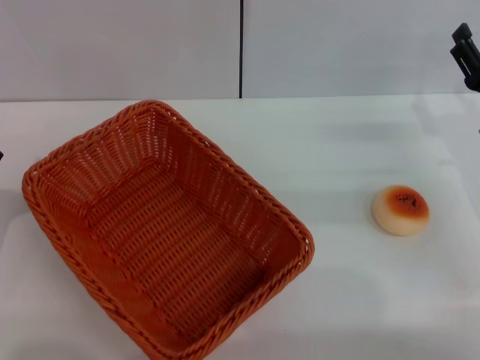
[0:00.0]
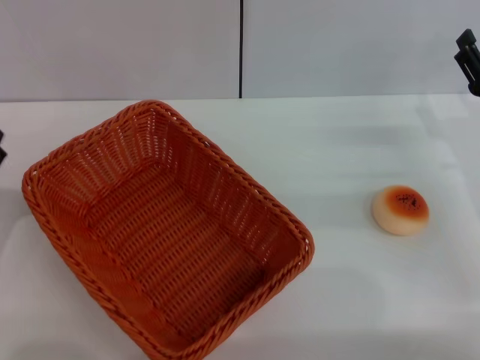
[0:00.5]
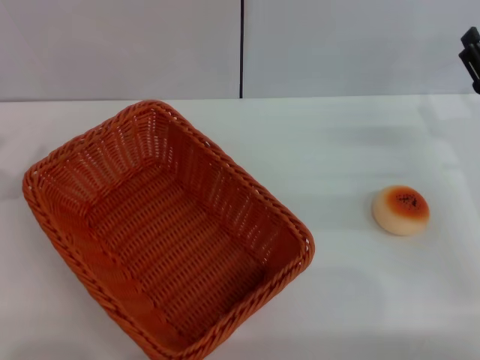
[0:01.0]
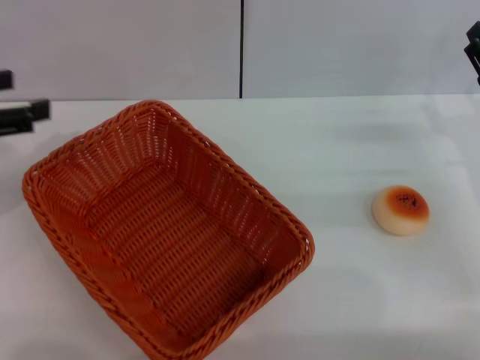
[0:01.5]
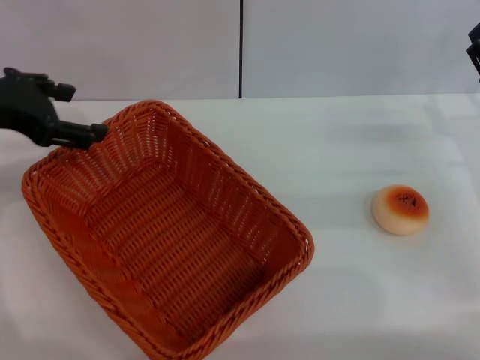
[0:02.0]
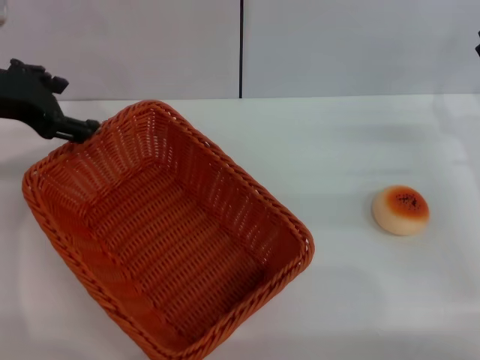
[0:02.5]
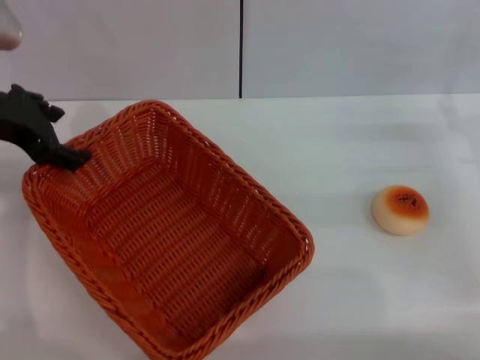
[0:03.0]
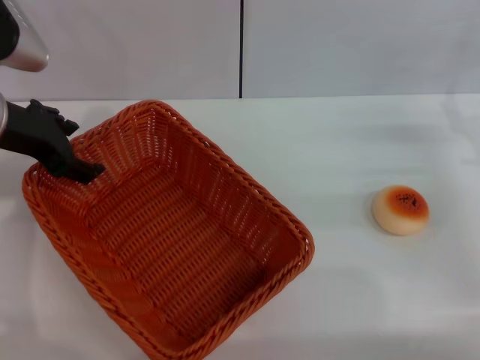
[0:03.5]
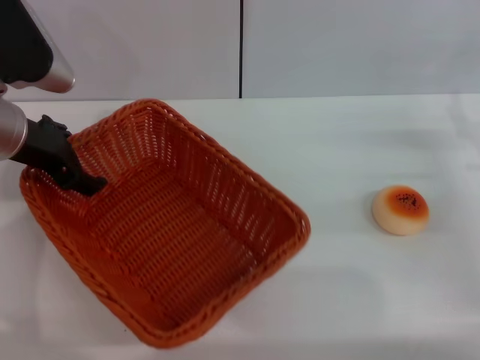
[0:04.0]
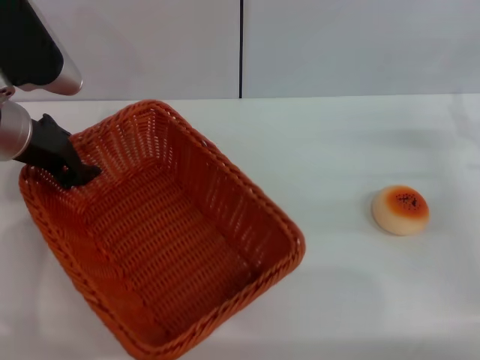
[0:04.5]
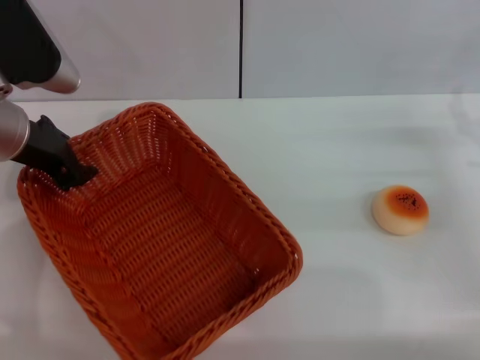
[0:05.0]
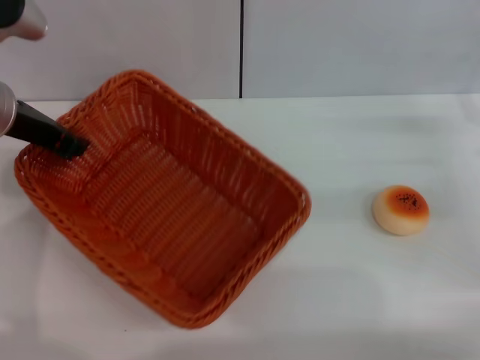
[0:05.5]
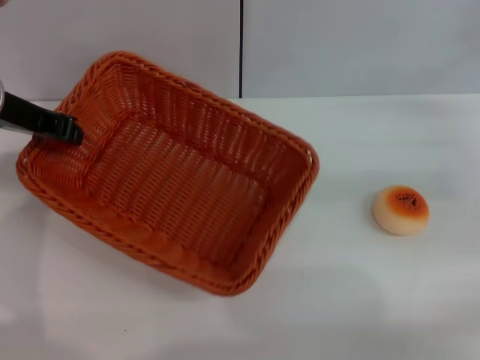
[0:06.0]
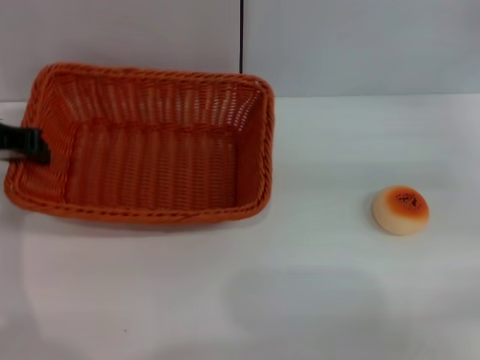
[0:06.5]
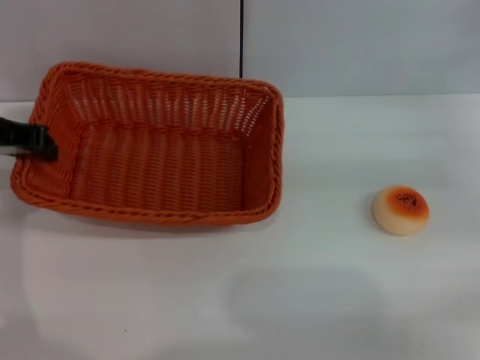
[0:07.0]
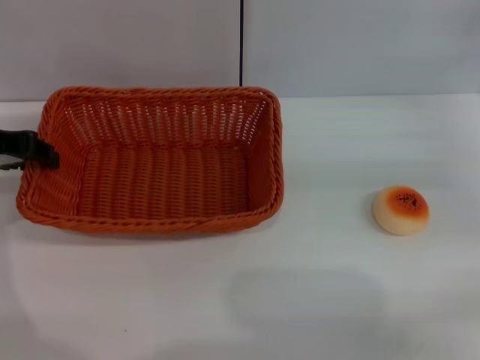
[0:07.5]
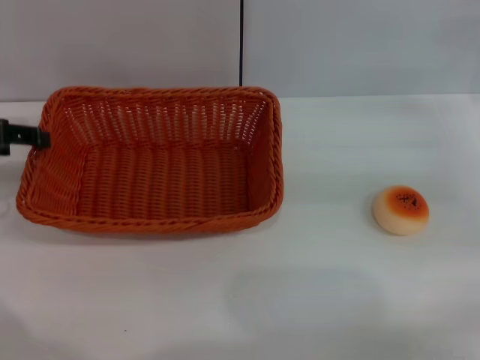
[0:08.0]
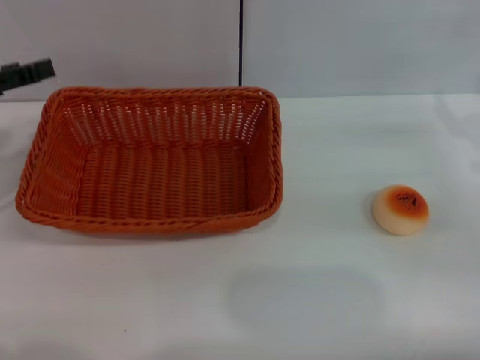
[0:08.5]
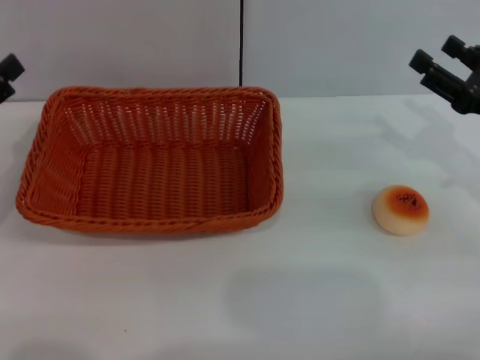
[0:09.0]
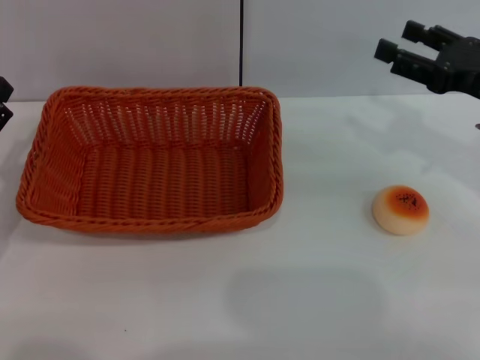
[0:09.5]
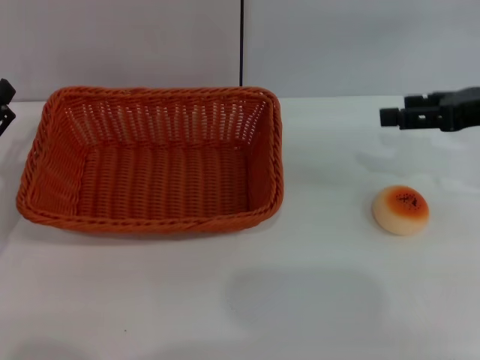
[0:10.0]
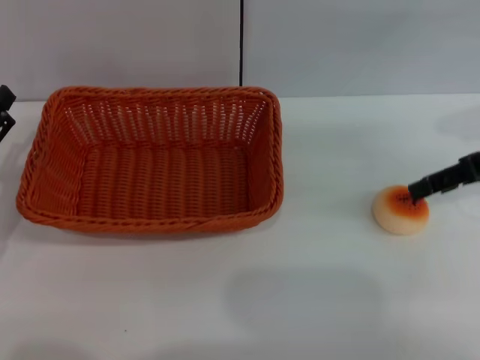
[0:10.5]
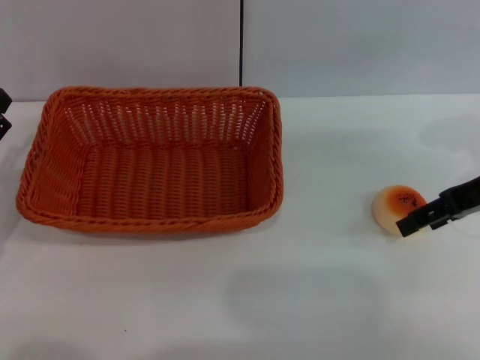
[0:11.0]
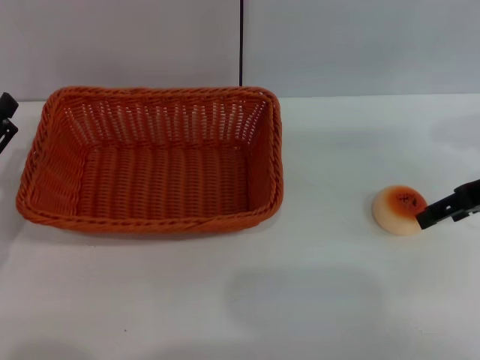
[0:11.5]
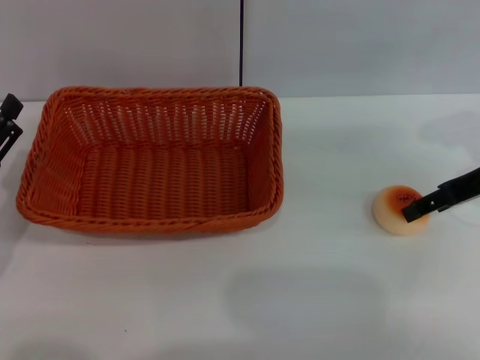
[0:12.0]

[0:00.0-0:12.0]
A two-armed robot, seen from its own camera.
Step, 0:00.0 to 0:08.0: Move the basket to the center of view with the left gripper.
0:00.0 to 0:02.0: The left gripper shifts some 25 cm upward and forward.
0:02.0 to 0:04.0: The left gripper moves downward, about 5 cm.
0:04.0 to 0:06.0: The right gripper shifts by roughly 5 cm, while the left gripper closes its fingers.
0:06.0 to 0:08.0: The left gripper moves to the left, some 10 cm, and opens up.
0:08.0 to 0:10.0: The right gripper travels upward by approximately 10 cm. The left gripper heads downward and backward, covering approximately 15 cm.

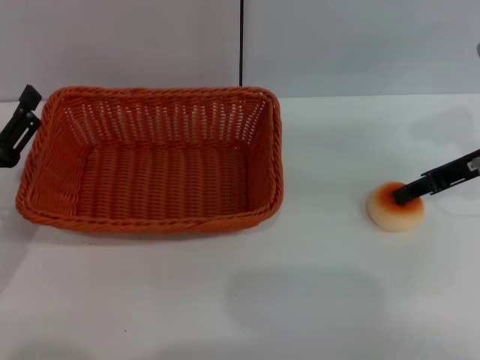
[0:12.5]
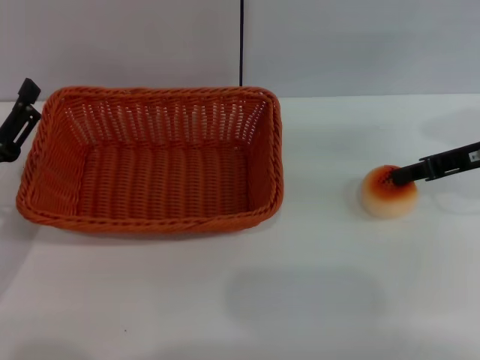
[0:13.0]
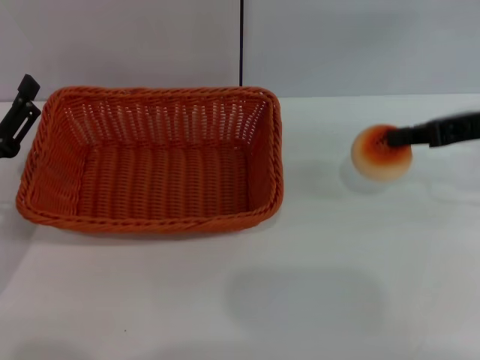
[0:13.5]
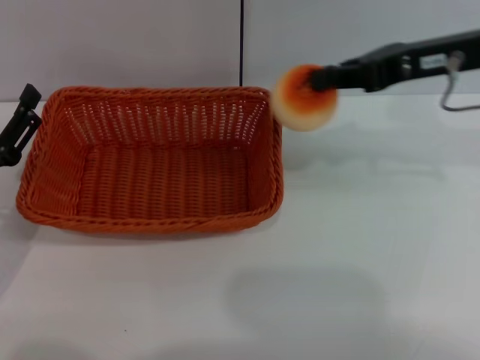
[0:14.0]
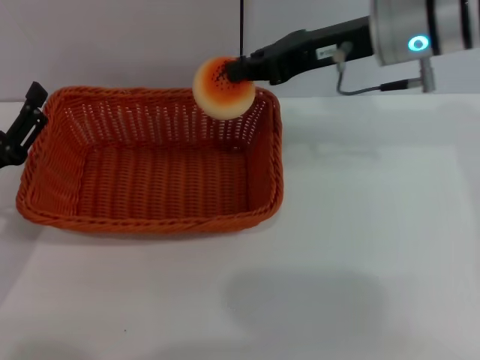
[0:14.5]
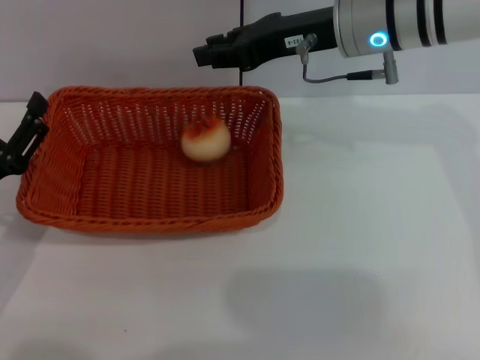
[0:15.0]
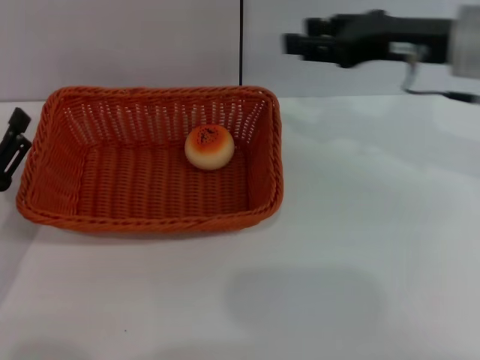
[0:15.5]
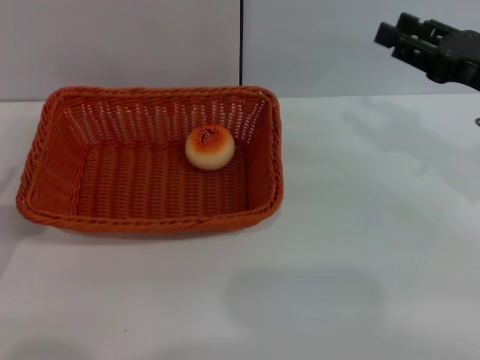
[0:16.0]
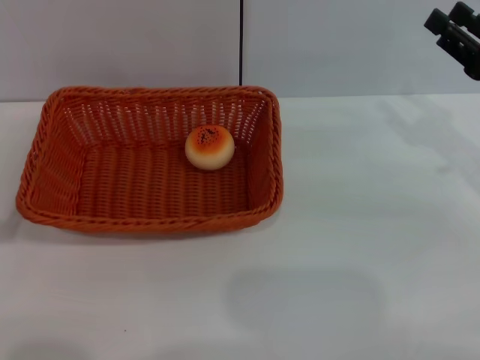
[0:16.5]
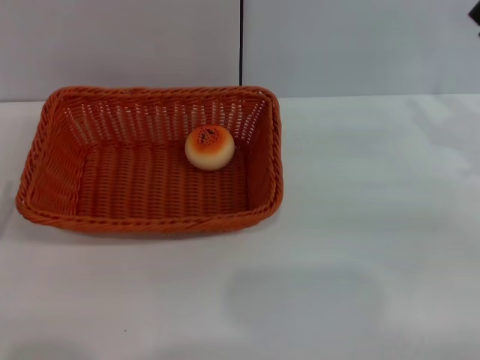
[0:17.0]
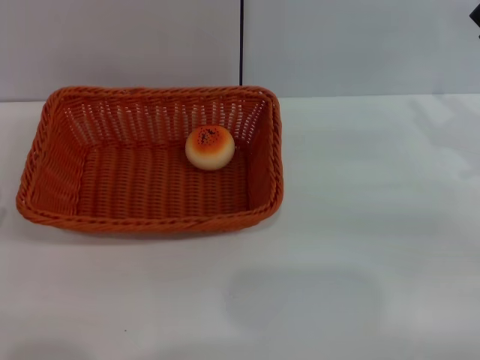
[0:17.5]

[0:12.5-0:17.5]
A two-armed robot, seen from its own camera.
Step, 0:14.0 to 0:15.0: Place the egg yolk pastry into the basket with the right gripper.
0:12.5 to 0:15.0: The right gripper moves to the left, approximately 15 cm, and closes.
0:15.0 to 0:17.5: The right gripper goes about 25 cm to the right, backward and downward, and opens, while the left gripper moves backward, roughly 10 cm.
